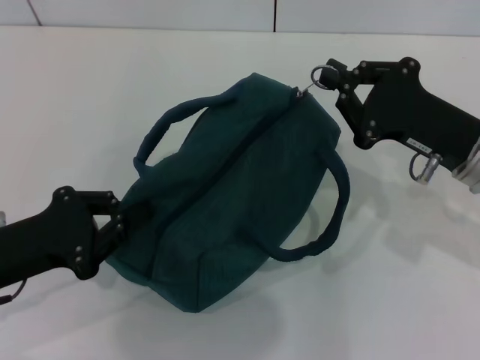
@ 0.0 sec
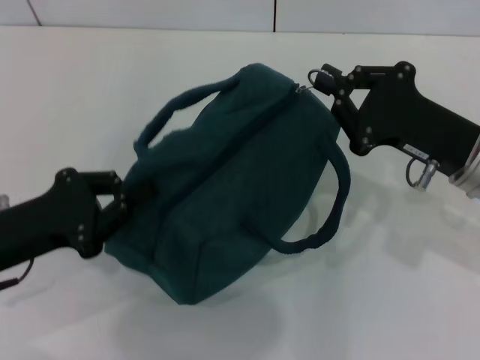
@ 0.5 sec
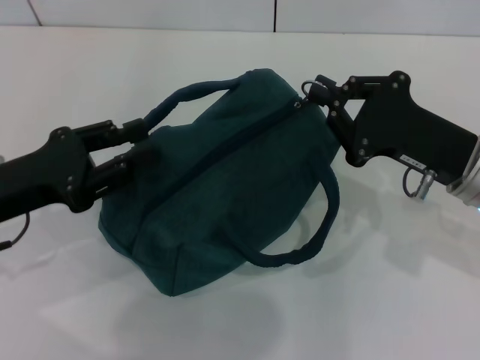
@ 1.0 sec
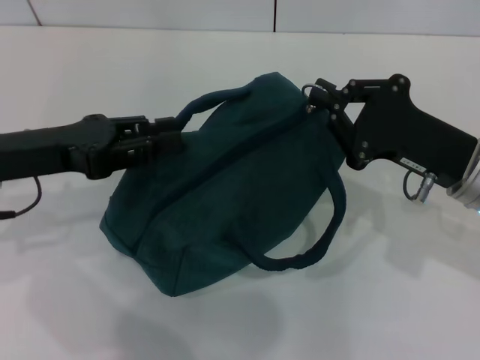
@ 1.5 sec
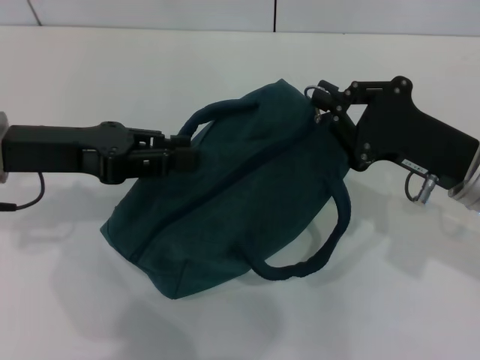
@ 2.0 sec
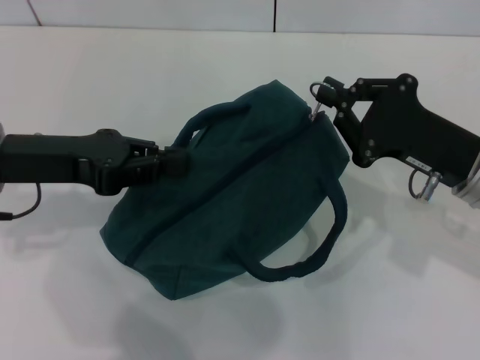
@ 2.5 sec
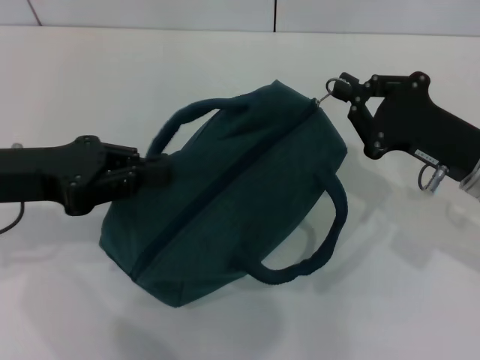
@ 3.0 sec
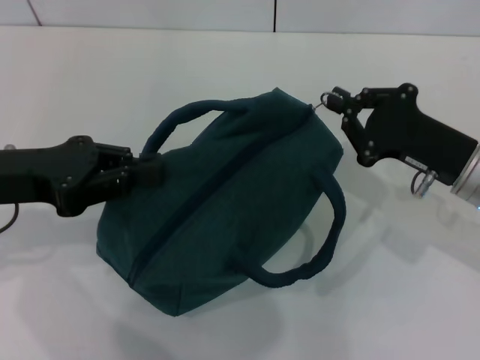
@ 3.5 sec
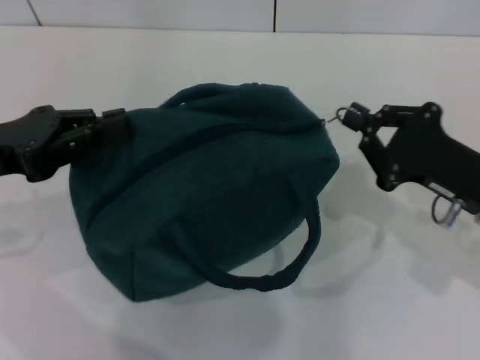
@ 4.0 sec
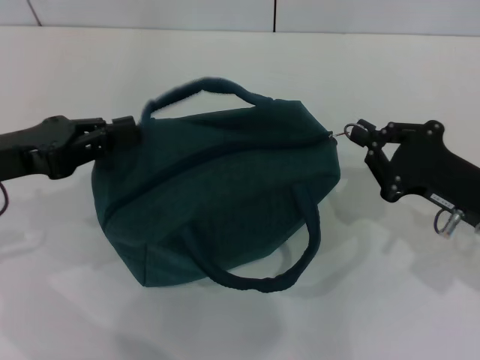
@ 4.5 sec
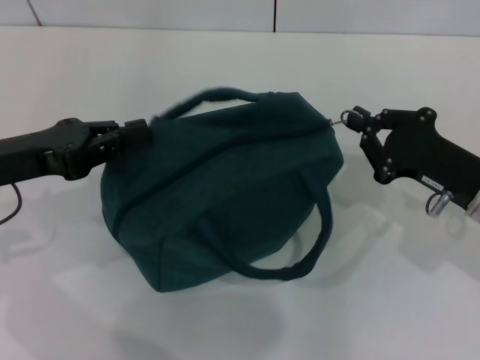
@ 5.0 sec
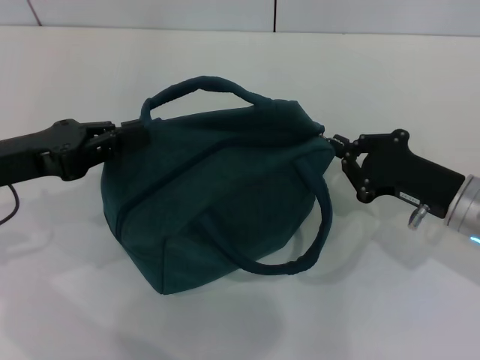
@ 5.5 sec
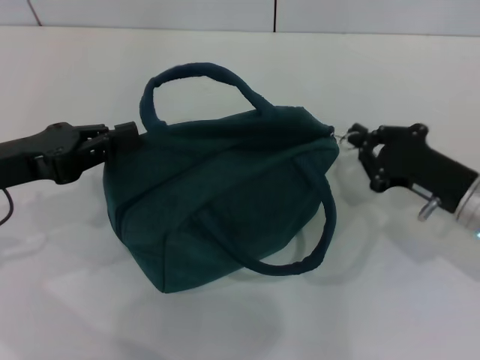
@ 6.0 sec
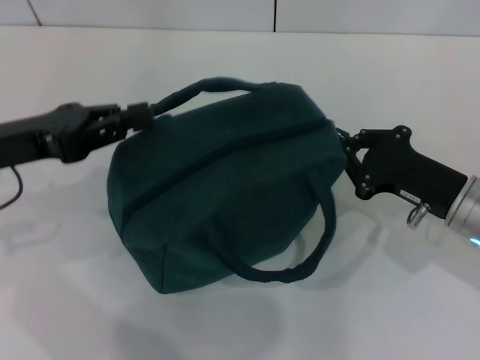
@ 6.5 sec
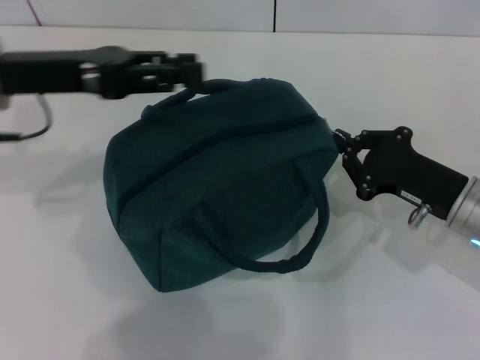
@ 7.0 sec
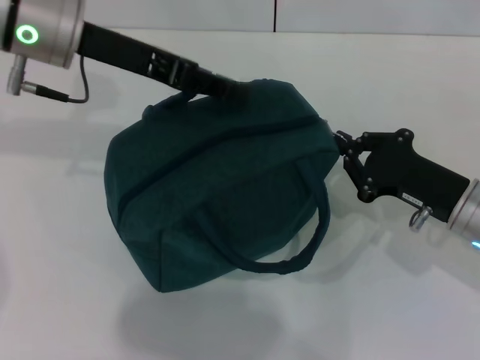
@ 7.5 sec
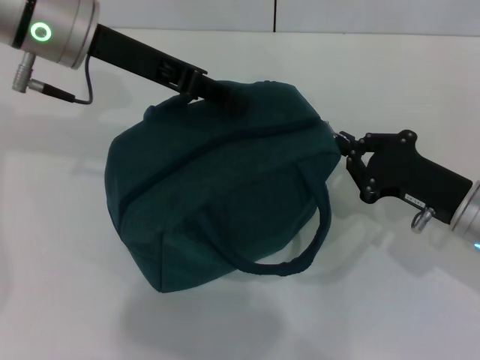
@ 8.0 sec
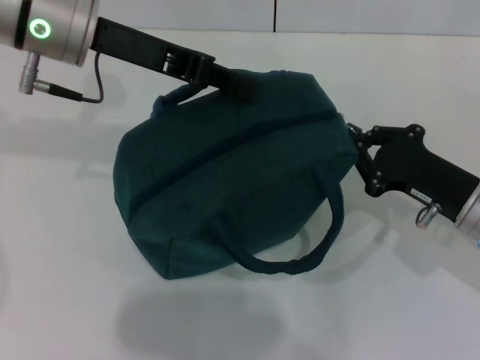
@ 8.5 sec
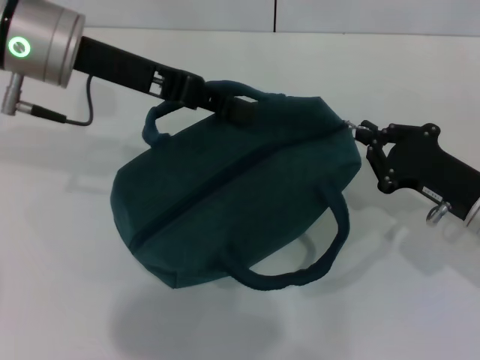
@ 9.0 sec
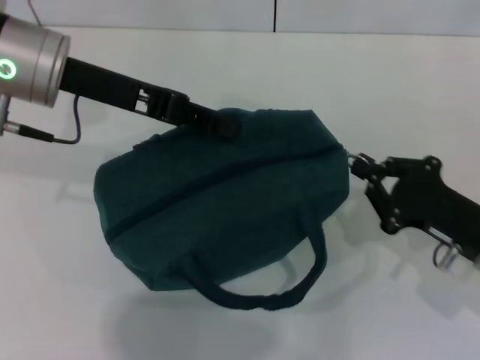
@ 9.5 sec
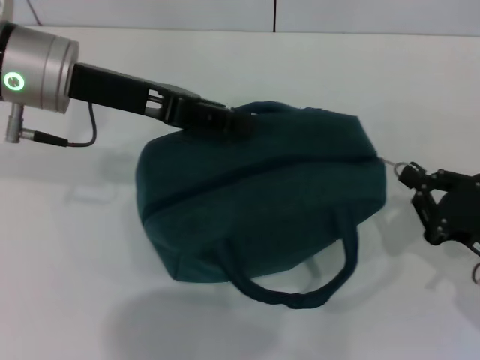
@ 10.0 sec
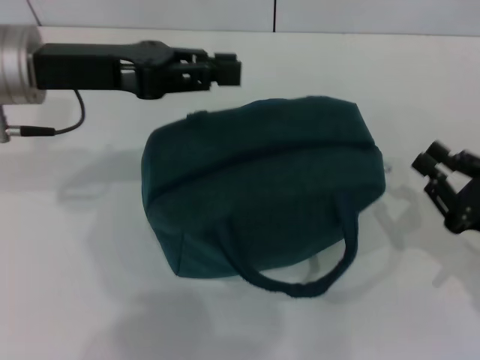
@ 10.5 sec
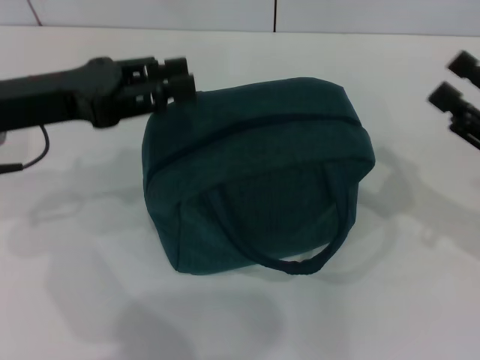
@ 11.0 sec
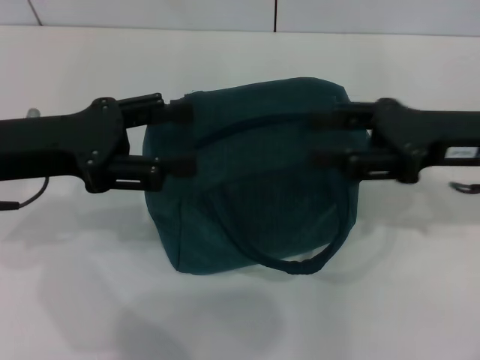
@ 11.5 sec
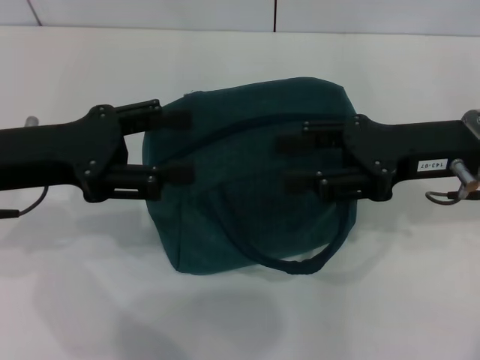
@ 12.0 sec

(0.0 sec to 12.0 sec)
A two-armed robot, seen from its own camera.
Step, 0.0 sec - 10.0 sec: Hold the lunch bag with your left hand.
0.0 sec - 2.0 sec: The left gripper goes about 10 cm forward and upward, and opens up.
2.0 sec - 4.0 sec: The left gripper moves some 5 cm, and closes up.
4.0 sec - 6.0 sec: The grippers make only small movements.
6.0 sec - 8.0 sec: The left gripper goes some 20 cm forward, to the right and upward, and opens its fingers.
8.0 sec - 10.0 sec: The right gripper moves backward and to the right, about 10 cm. The left gripper closes up.
10.0 sec - 12.0 sec: The right gripper goes roughly 15 cm upward, forward and to the left, and opens its fingers; the left gripper goes some 10 cm backward and to the left, and opens up.
